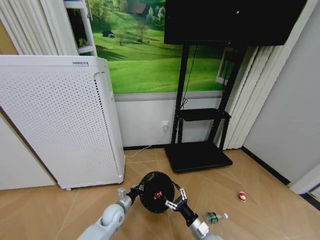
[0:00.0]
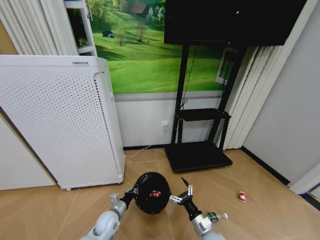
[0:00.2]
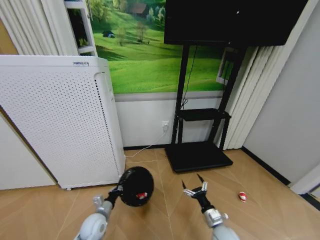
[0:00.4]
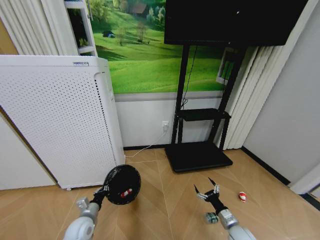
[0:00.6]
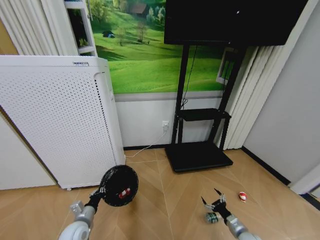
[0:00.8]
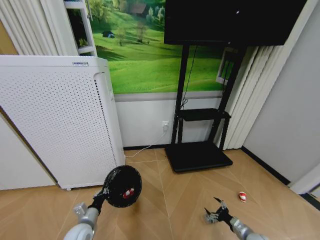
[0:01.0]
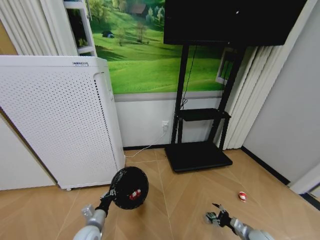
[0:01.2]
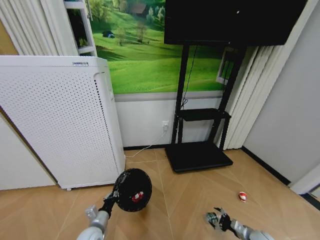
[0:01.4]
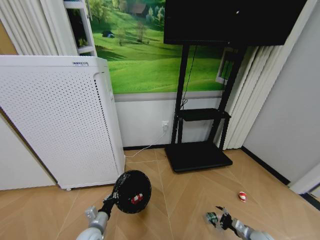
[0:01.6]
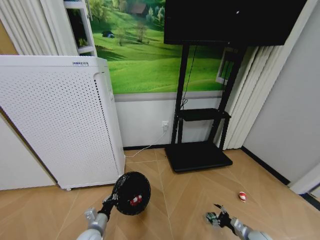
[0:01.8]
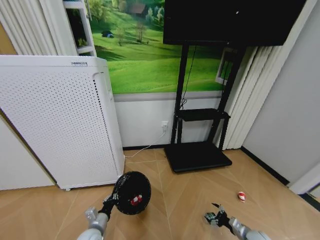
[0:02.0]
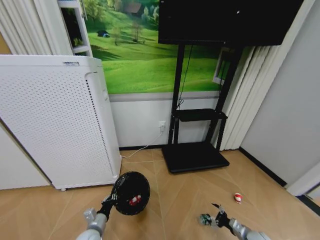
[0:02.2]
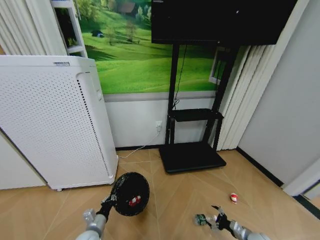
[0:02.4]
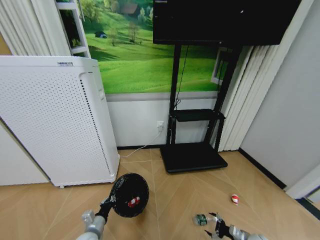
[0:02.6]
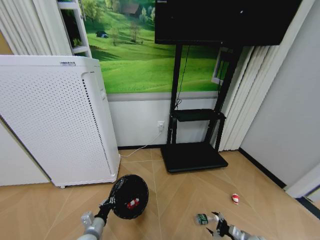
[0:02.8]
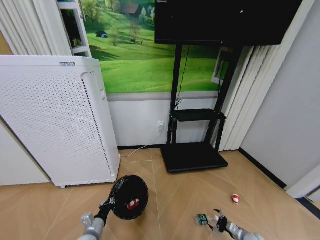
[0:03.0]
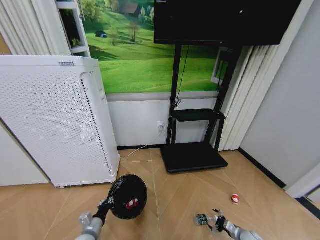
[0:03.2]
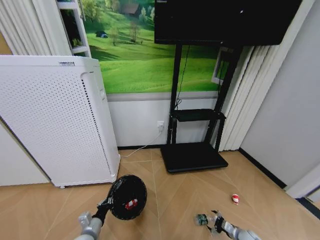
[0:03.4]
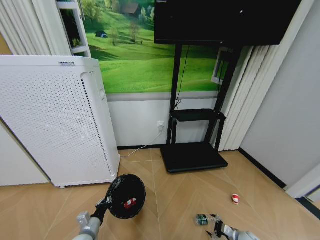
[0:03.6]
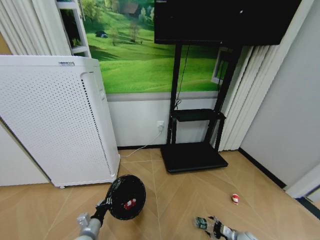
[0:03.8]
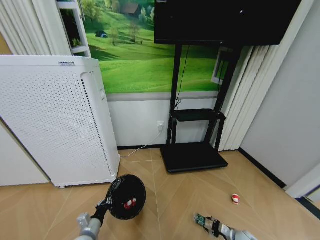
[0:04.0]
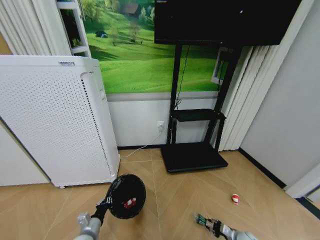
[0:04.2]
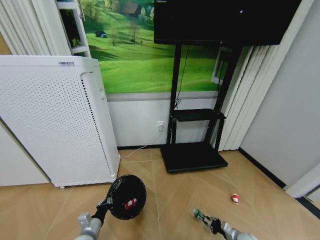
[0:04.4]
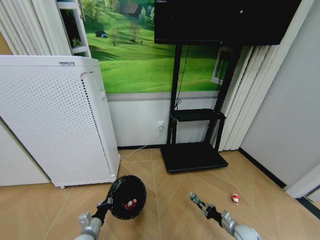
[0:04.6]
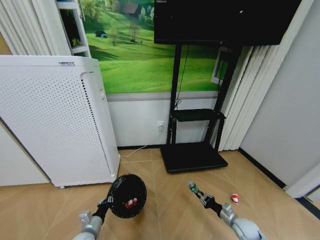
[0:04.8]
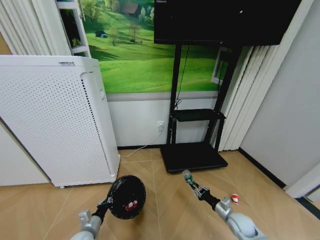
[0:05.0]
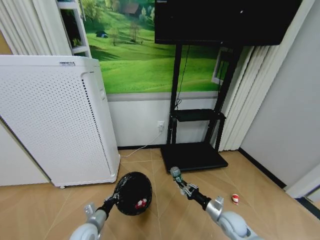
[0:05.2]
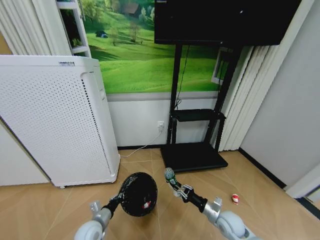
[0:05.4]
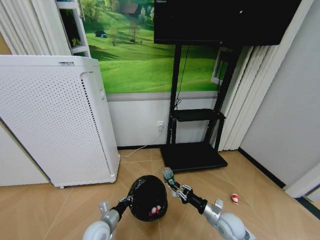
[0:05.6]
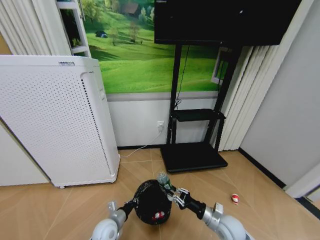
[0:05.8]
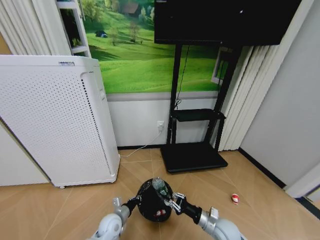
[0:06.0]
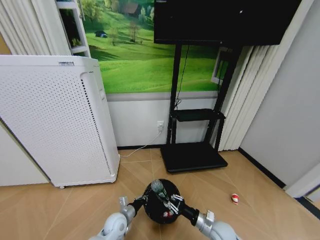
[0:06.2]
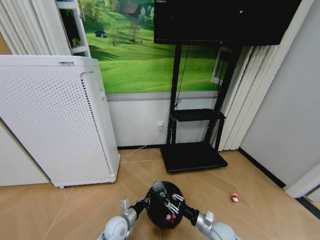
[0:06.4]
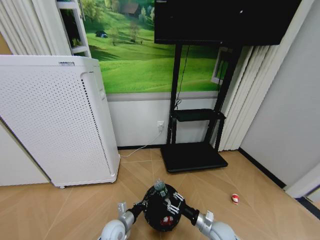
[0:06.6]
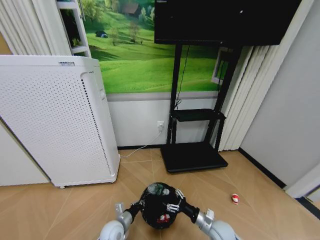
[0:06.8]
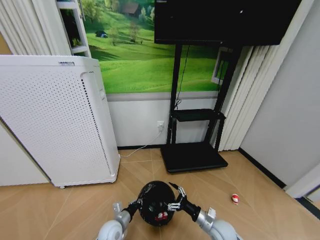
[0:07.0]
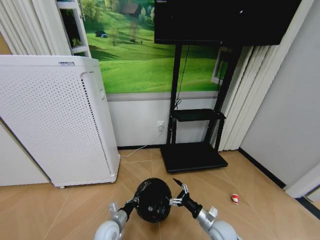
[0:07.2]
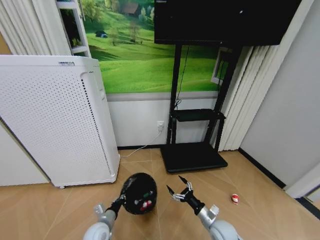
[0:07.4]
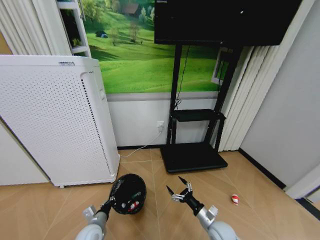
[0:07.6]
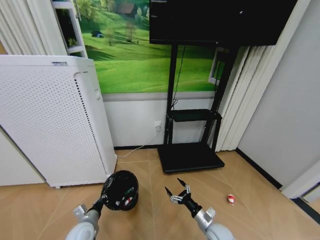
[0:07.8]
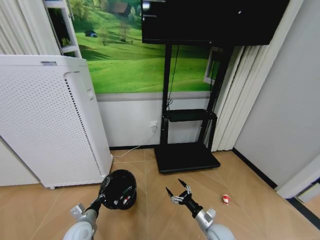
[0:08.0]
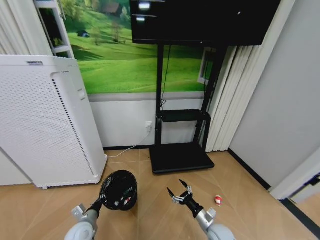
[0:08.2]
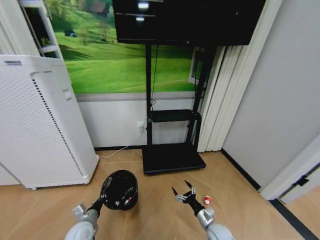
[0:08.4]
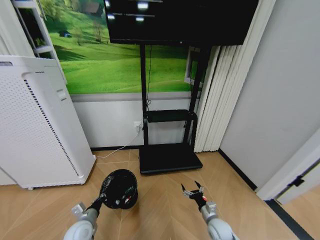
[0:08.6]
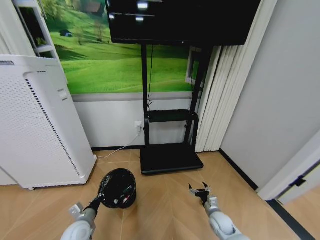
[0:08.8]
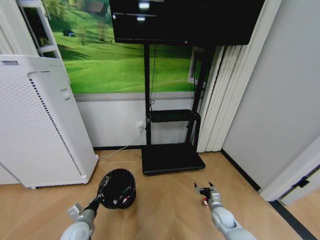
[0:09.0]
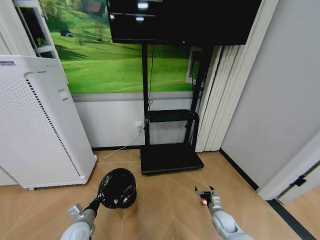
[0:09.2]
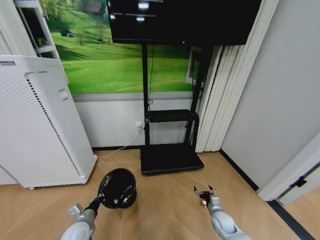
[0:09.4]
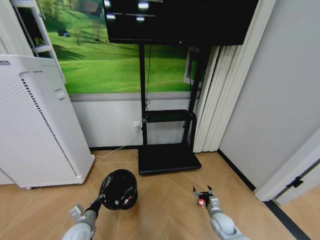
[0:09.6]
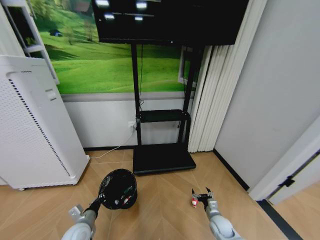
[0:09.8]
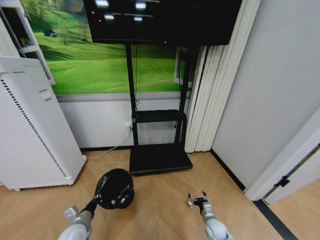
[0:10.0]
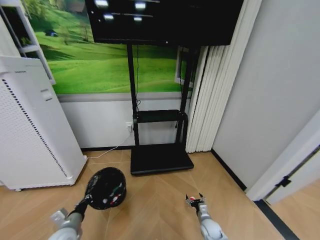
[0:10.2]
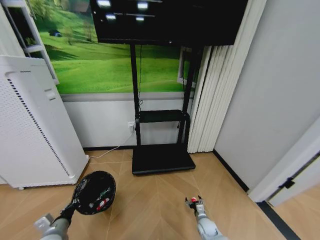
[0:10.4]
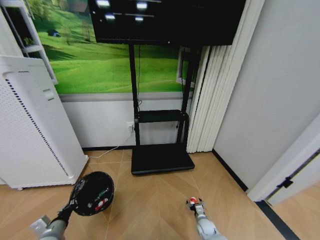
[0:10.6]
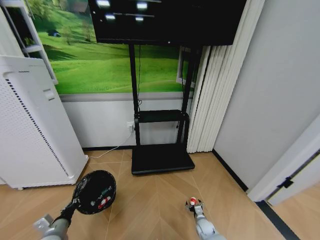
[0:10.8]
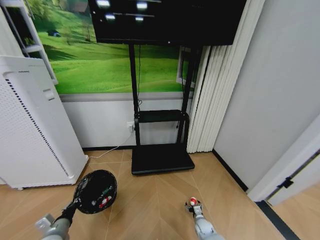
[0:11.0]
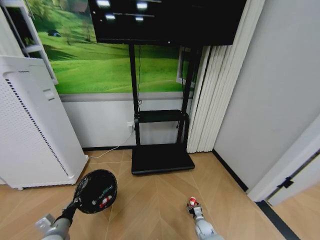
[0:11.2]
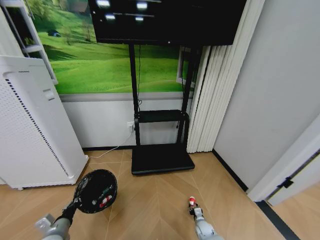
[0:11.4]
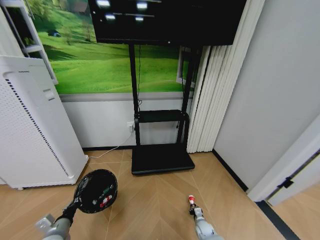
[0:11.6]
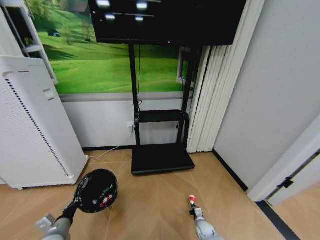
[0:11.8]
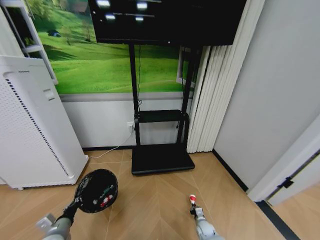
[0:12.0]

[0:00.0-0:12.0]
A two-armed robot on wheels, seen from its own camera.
Task of the whole recording: Pick up the trash bin and place the garbage on the floor into it.
0:00.0 to 0:01.6: The left gripper moves backward and to the left, roughly 10 cm, while the right gripper shifts approximately 25 cm to the right.
0:01.6 to 0:03.0: There are only small adjustments of the grippers.
0:03.0 to 0:04.4: The right gripper closes.
0:04.4 to 0:06.0: The right gripper shifts some 25 cm to the left and upward. Meanwhile the left gripper moves to the right and forward, about 10 cm.
0:06.0 to 0:07.6: The left gripper goes some 5 cm to the left; the right gripper opens up.
0:07.6 to 0:09.0: The right gripper moves forward and to the right, roughly 10 cm.
0:09.0 to 0:10.4: The left gripper heads to the left, covering roughly 5 cm. The right gripper is displaced downward and to the left by roughly 10 cm.
0:10.4 to 0:12.0: The right gripper closes.

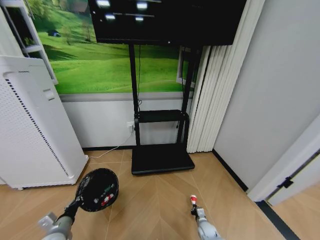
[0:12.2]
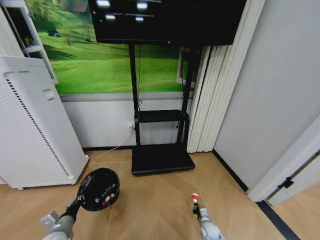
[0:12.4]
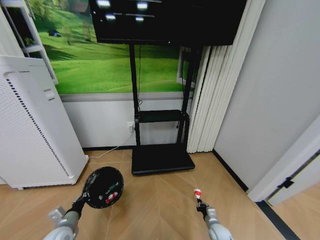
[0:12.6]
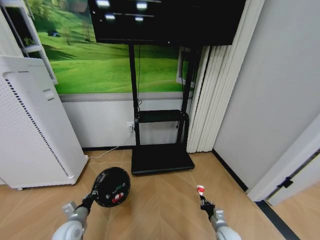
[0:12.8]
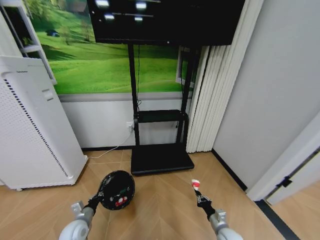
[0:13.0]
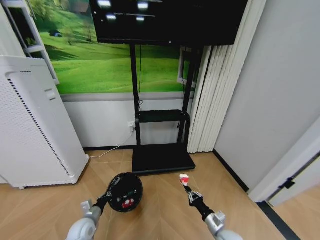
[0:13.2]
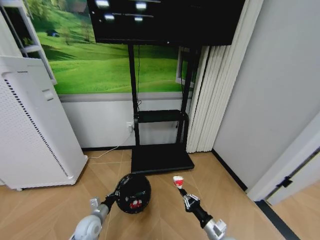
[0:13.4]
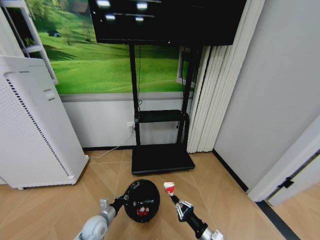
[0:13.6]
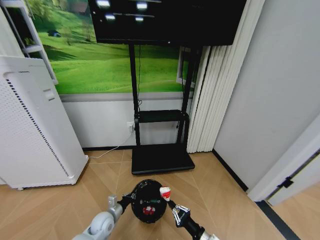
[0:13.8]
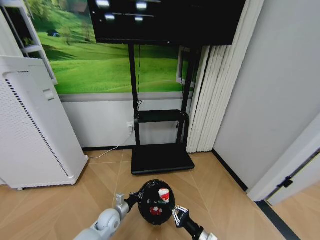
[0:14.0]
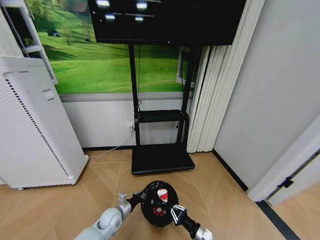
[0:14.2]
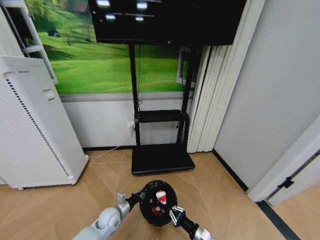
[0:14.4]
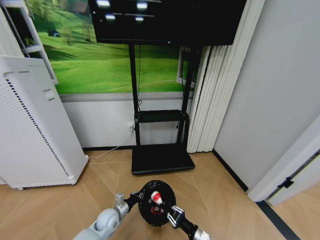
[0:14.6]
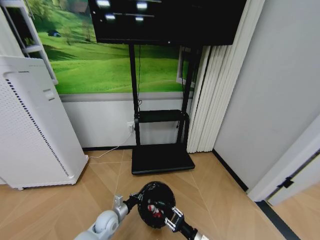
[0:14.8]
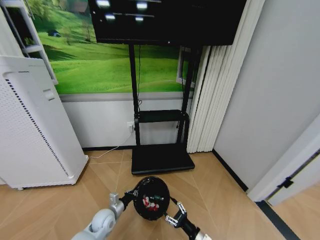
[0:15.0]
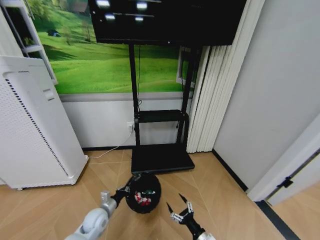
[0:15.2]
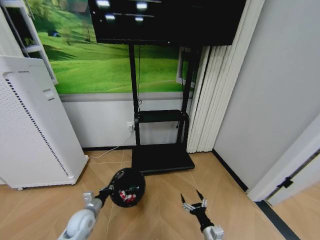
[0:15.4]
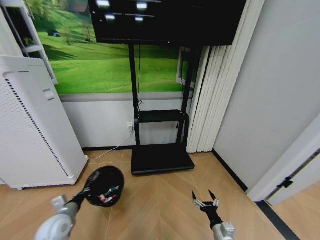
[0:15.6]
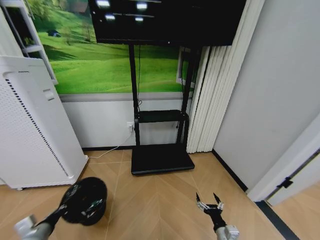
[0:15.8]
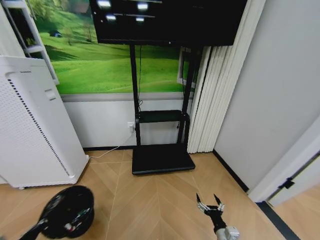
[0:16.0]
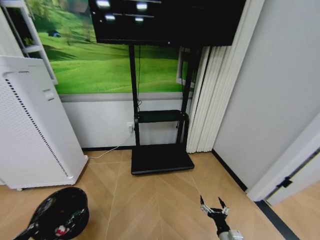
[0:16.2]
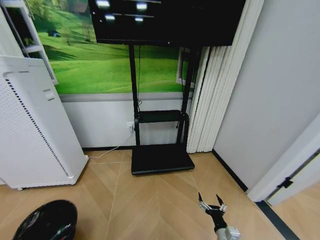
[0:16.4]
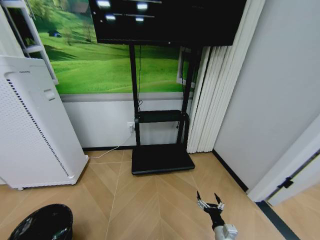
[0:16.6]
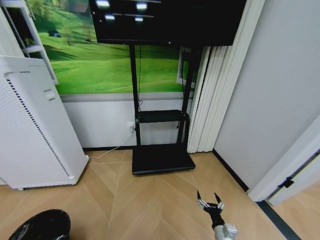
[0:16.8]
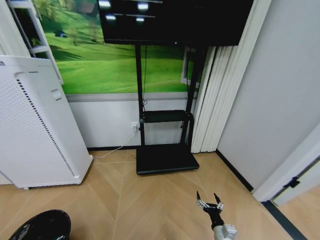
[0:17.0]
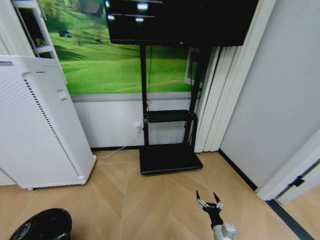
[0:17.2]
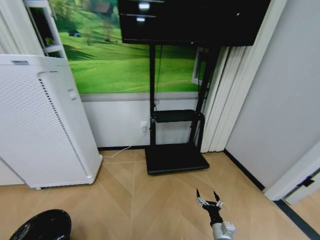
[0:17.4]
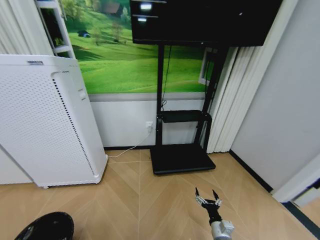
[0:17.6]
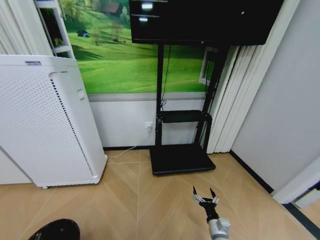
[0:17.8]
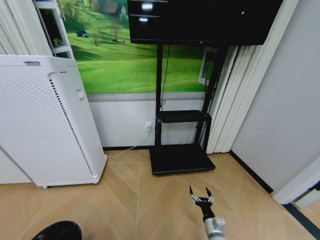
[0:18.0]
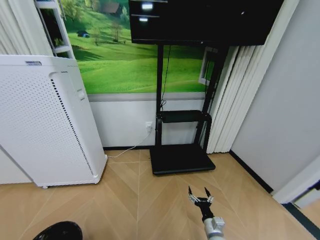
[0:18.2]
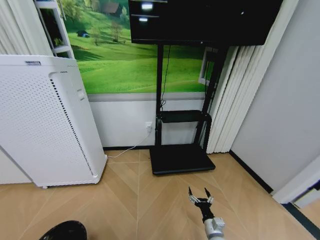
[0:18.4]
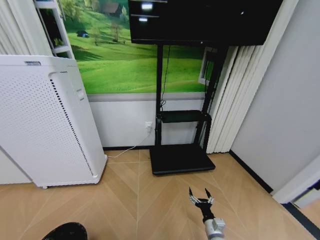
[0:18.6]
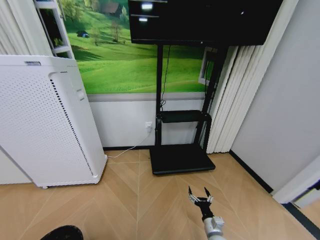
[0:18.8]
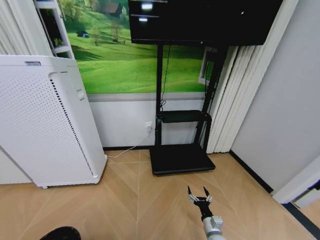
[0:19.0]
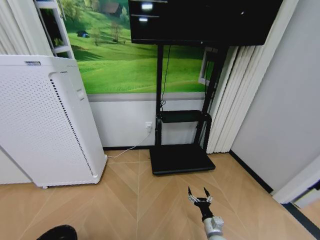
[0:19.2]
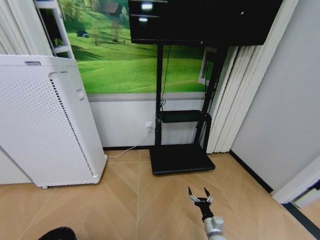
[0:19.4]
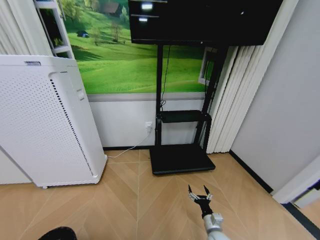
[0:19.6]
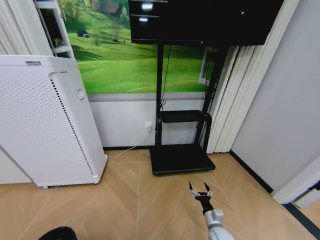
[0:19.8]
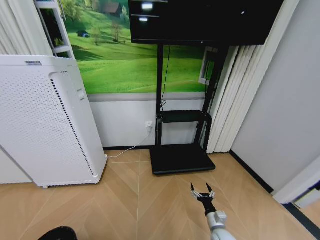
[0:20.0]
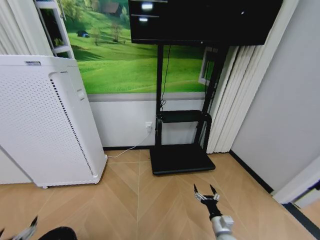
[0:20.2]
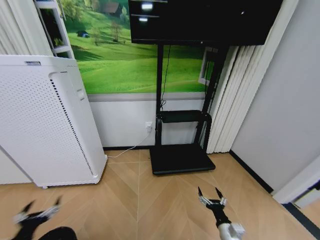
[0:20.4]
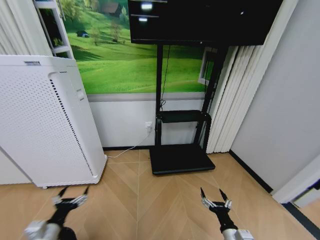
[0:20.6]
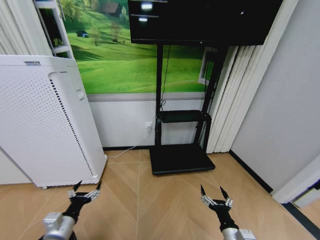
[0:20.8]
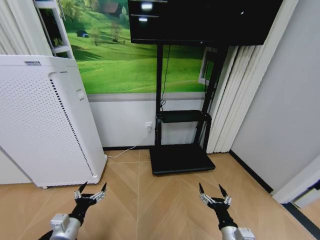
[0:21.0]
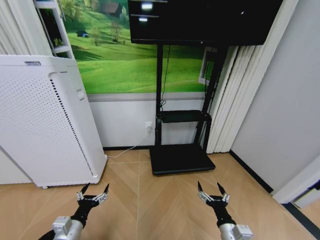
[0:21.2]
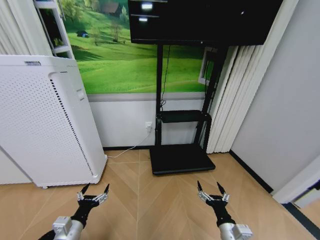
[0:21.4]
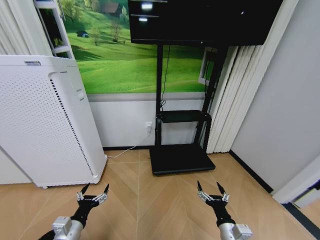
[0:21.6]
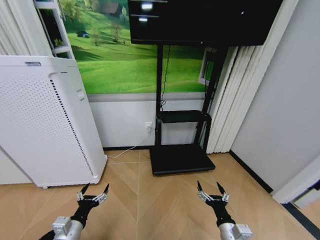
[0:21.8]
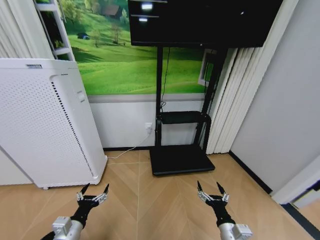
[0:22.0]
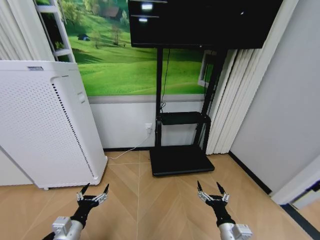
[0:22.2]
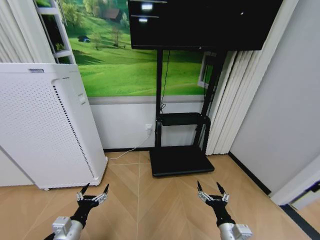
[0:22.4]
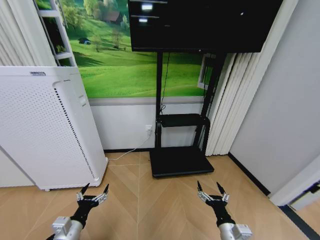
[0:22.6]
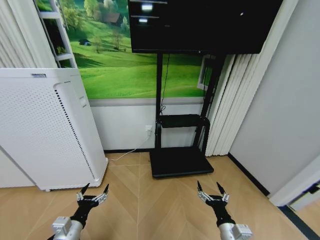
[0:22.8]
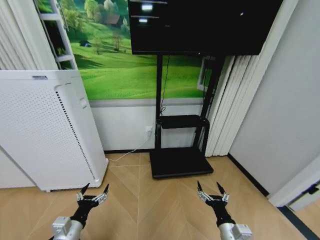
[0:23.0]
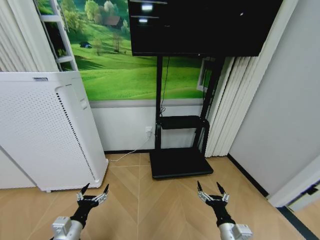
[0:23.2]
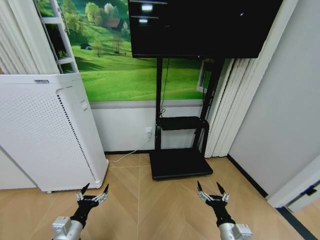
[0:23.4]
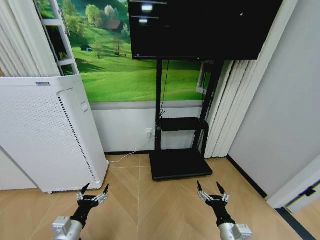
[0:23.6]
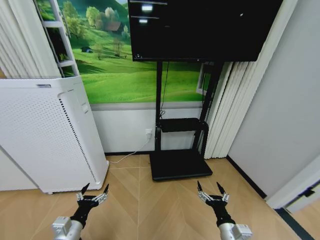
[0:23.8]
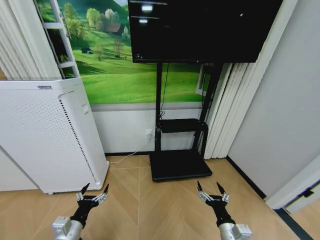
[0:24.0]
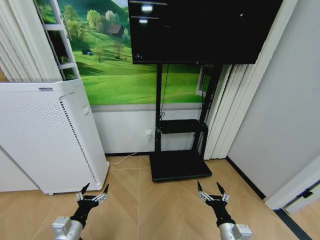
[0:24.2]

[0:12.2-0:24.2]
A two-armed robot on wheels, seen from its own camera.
Task of the whole recording: Pick up the trash bin and place the garbage on the floor into it.
0:12.2 to 0:13.8: The right gripper is displaced upward and backward by approximately 25 cm. Meanwhile the left gripper moves to the right, forward and downward, approximately 20 cm.
0:13.8 to 0:15.2: The right gripper opens.
0:15.2 to 0:16.6: The left gripper is displaced to the left and backward by some 35 cm.
0:16.6 to 0:18.2: The left gripper ends up some 5 cm from where it was.
0:18.2 to 0:19.8: The left gripper opens up.
0:19.8 to 0:21.2: The right gripper goes roughly 15 cm upward and backward. Meanwhile the left gripper goes some 25 cm forward and to the right.
0:21.2 to 0:24.2: Both grippers stay put.
